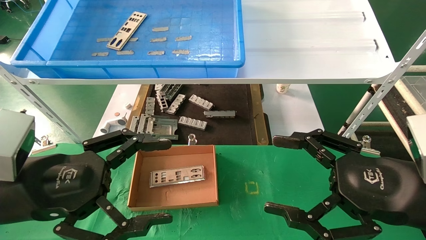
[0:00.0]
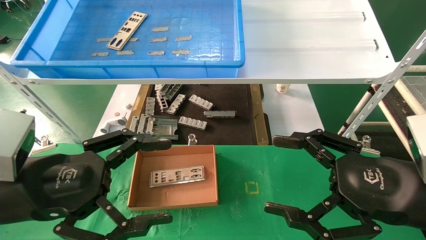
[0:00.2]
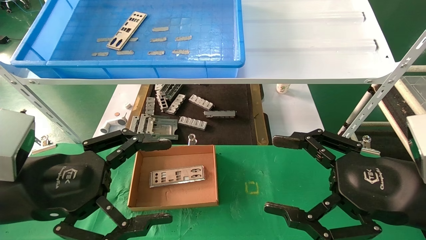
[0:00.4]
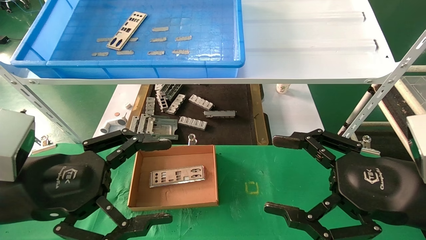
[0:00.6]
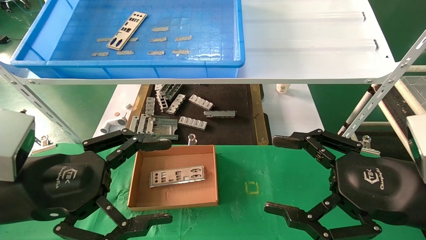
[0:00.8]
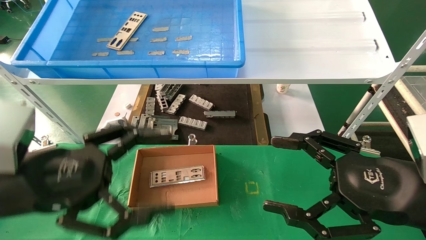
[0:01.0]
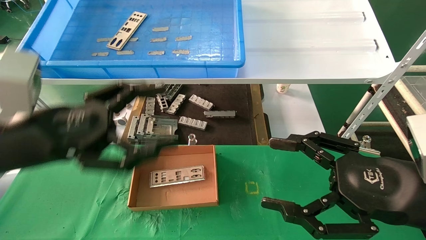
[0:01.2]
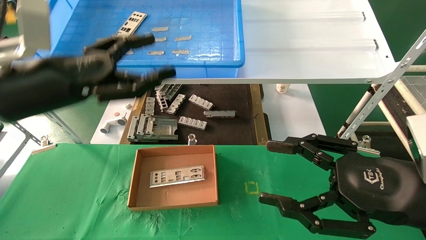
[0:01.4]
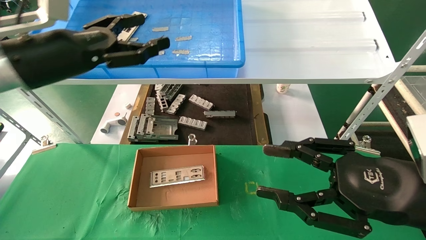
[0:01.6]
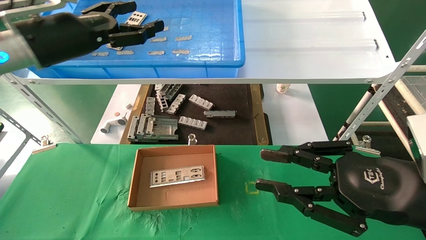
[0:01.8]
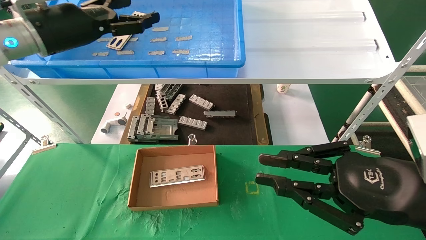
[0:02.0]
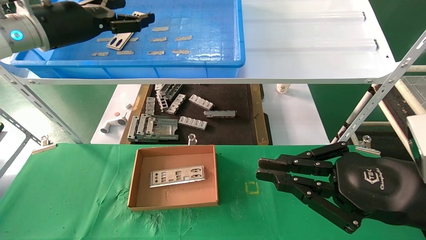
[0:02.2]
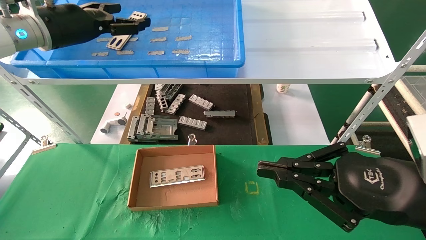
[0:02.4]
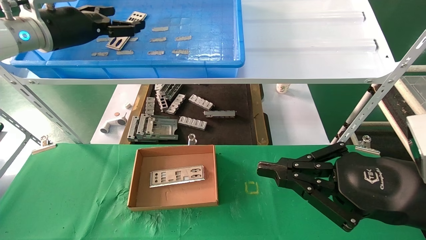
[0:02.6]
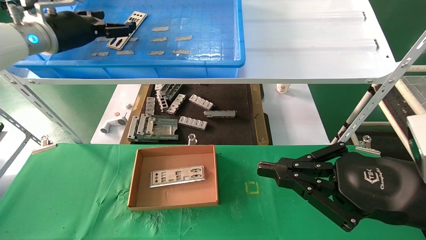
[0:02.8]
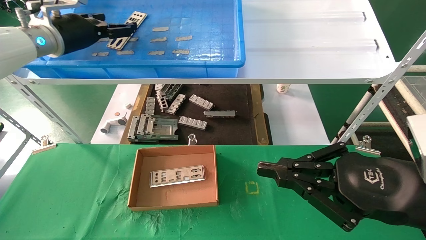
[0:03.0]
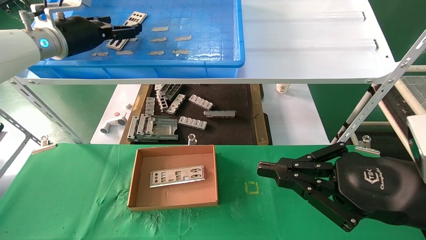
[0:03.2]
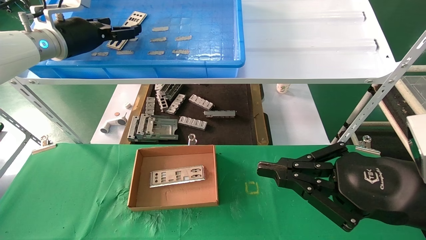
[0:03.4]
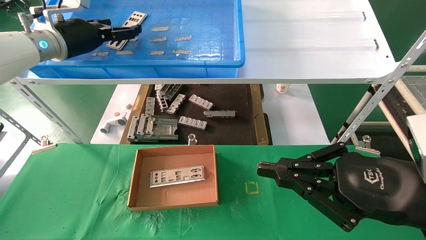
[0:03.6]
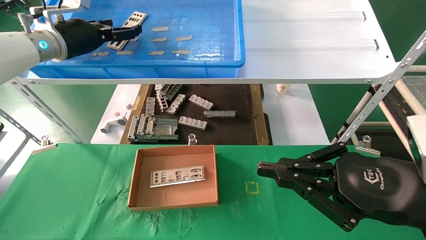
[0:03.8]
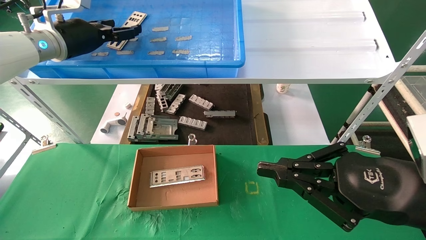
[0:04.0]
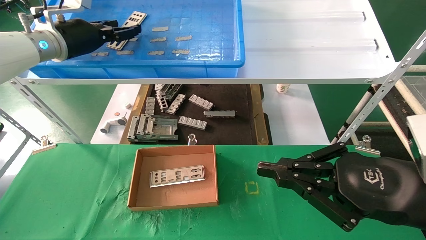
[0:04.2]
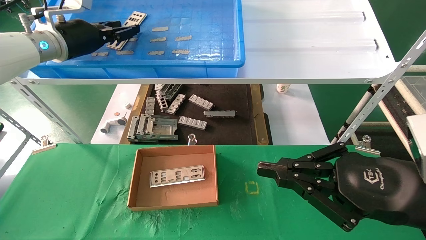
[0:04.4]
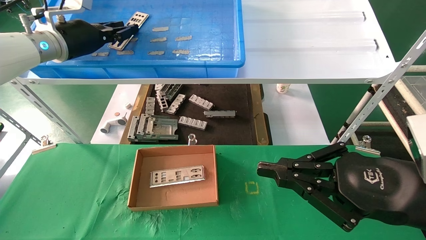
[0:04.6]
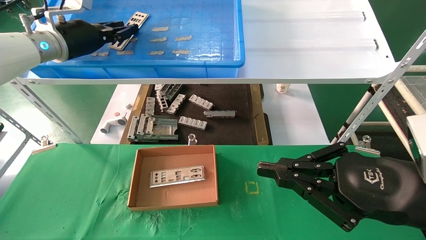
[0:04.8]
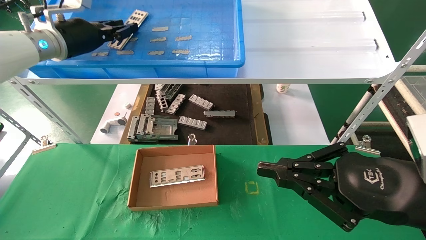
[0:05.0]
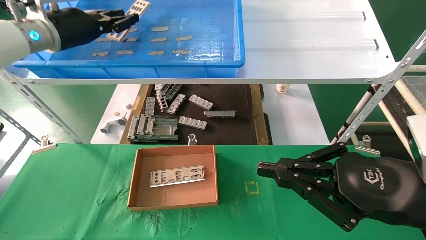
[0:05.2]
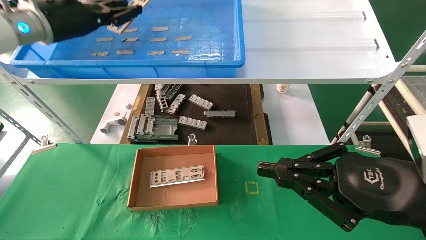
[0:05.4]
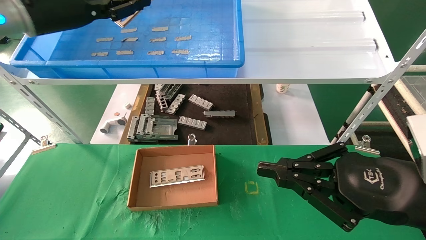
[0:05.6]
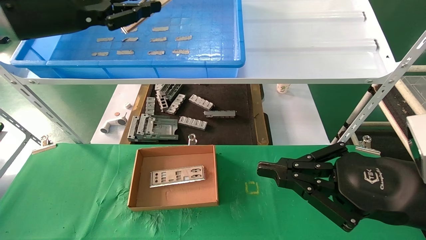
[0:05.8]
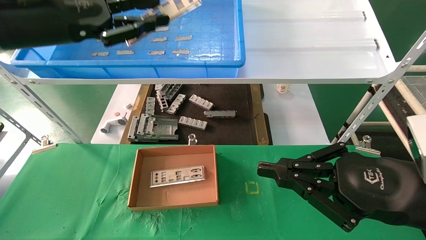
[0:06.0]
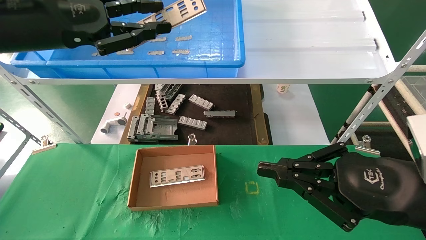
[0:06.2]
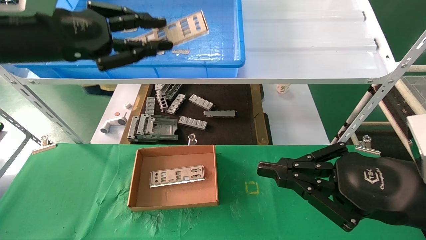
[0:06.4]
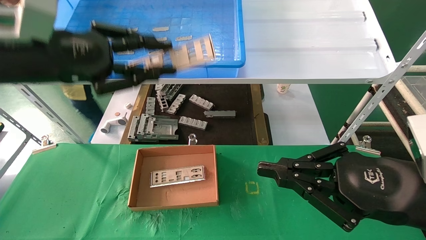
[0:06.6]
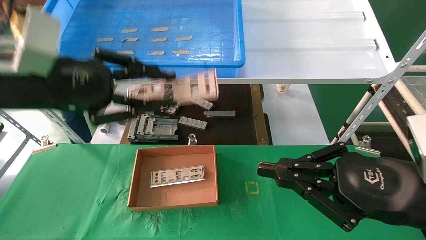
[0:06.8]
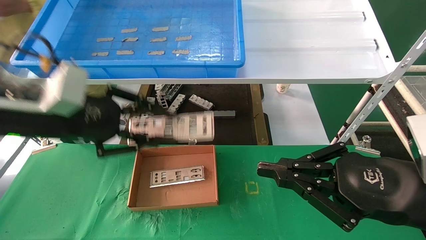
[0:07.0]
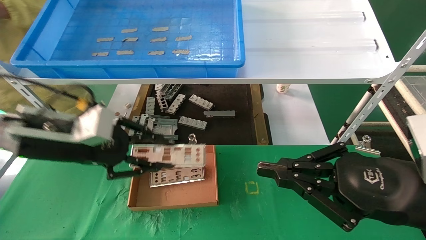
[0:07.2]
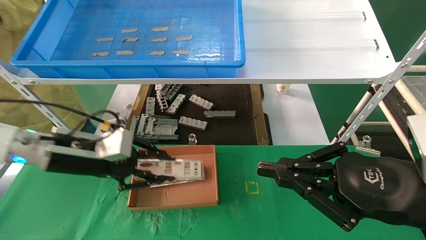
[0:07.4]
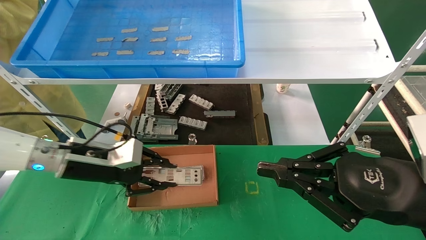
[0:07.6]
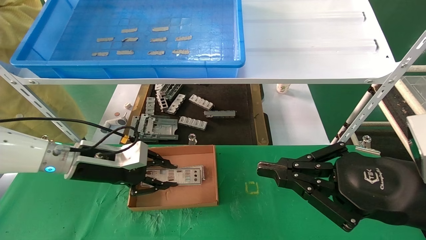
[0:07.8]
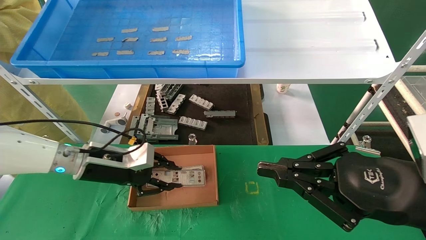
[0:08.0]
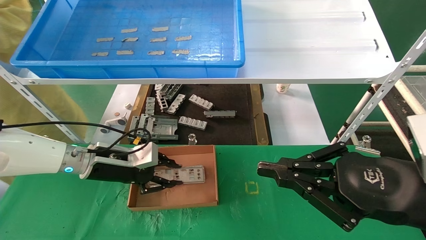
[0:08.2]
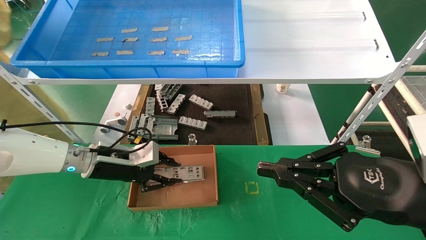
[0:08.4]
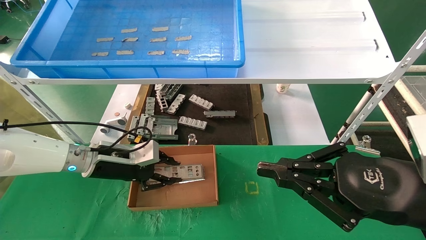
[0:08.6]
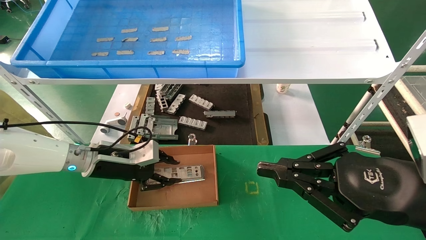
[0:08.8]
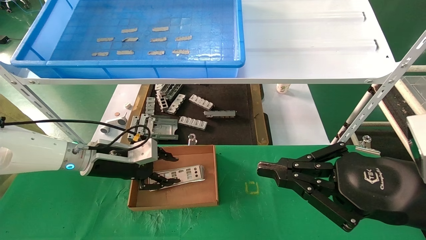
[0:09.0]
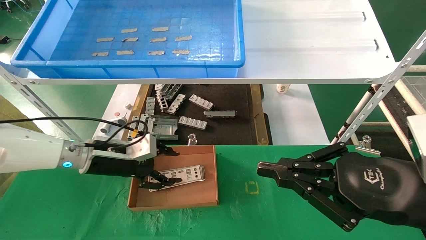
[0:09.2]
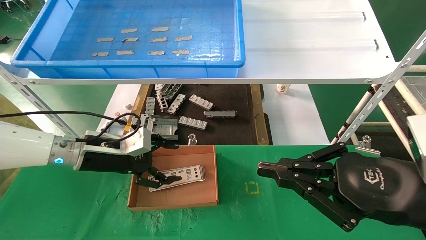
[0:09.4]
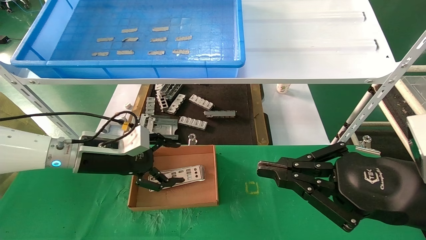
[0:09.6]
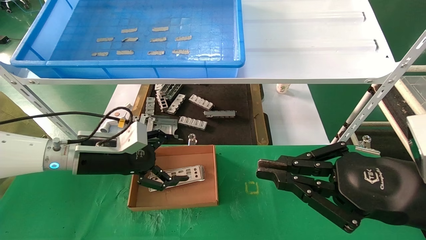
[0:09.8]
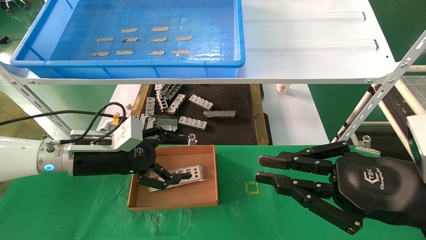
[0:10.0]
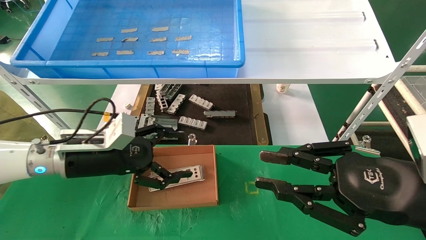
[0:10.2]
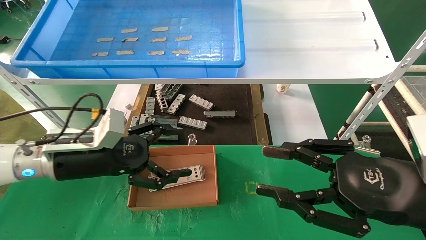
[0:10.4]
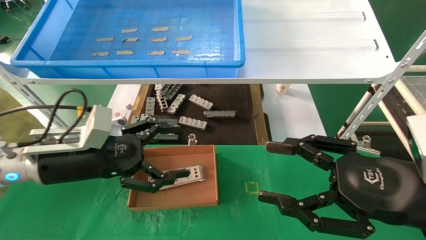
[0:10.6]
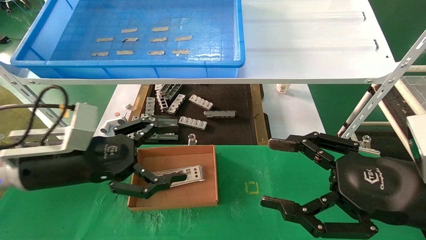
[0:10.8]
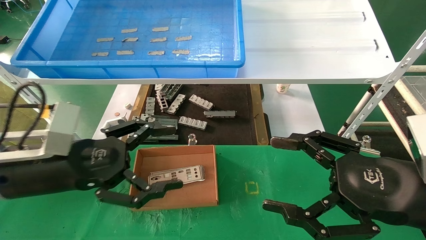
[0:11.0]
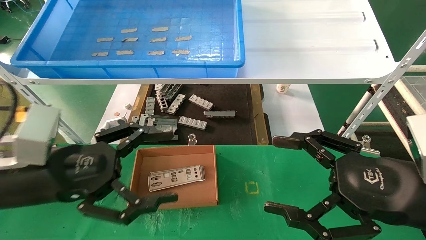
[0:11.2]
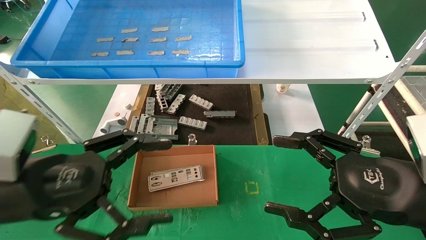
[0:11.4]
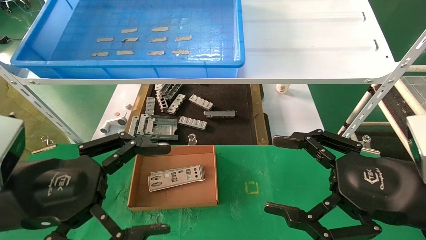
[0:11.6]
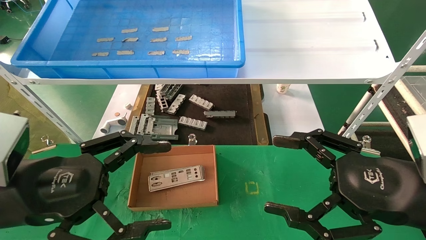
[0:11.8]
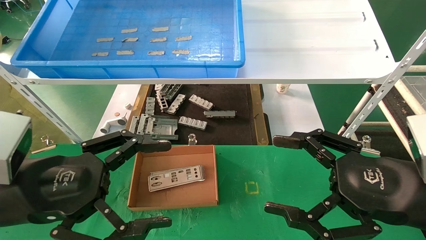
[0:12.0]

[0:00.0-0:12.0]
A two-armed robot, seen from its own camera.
Task of the whole recording: pick up the parts on the tray and put them in the cardboard box.
Step, 0:01.2 to 0:05.0: Pick up the IO bracket from the container box.
Step, 0:05.2 to 0:09.0: Place the IO bracket into the ingredient slot.
0:00.0 to 0:01.6: The left gripper is displaced forward and upward by some 20 cm.
0:01.6 to 0:03.0: The left gripper goes roughly 10 cm forward. The right gripper closes its fingers.
0:03.0 to 0:04.4: The left gripper closes up.
0:04.4 to 0:06.0: The left gripper shifts some 15 cm backward, and closes up.
0:06.0 to 0:07.6: The left gripper shifts roughly 25 cm downward.
0:07.6 to 0:09.0: The left gripper ends up some 5 cm from where it was.
0:09.0 to 0:10.4: The left gripper heads backward, covering about 10 cm, and opens. The right gripper opens up.
0:10.4 to 0:12.0: The right gripper opens up. The left gripper travels backward by some 15 cm.

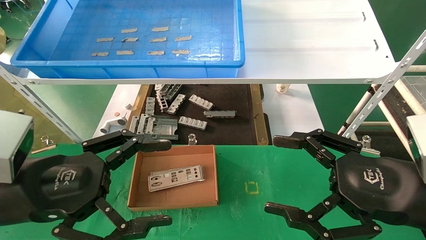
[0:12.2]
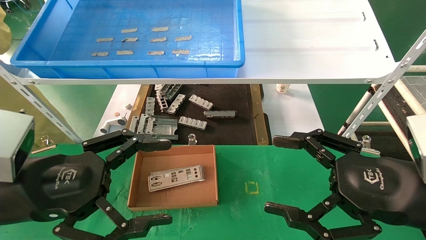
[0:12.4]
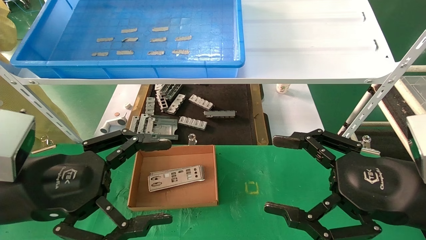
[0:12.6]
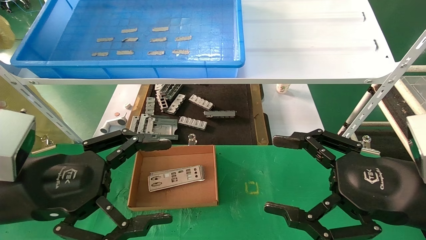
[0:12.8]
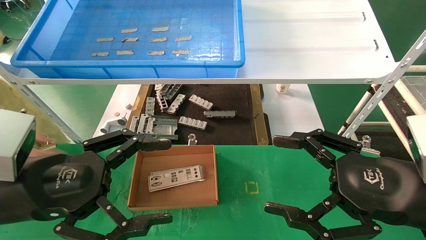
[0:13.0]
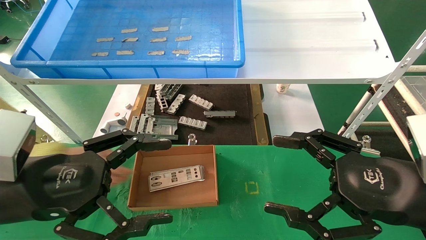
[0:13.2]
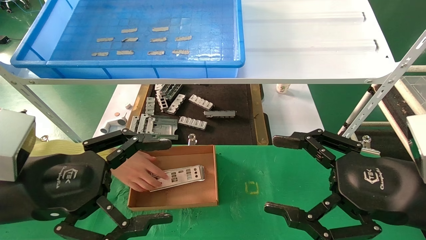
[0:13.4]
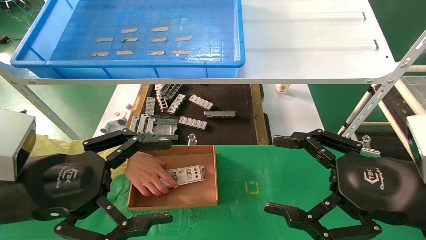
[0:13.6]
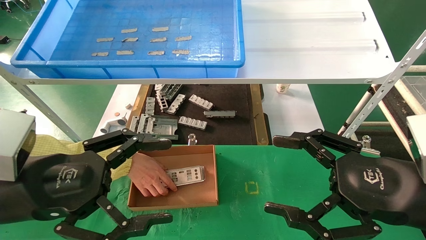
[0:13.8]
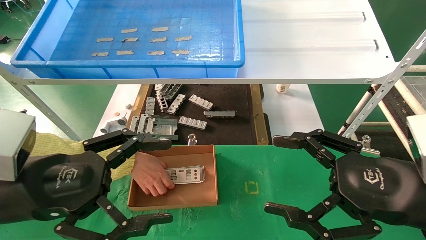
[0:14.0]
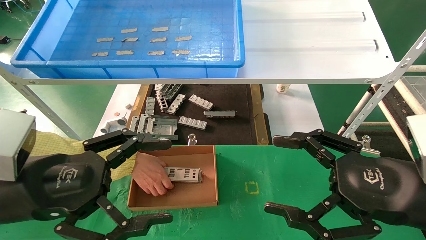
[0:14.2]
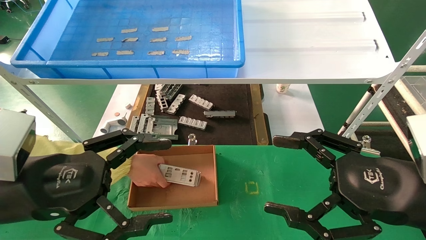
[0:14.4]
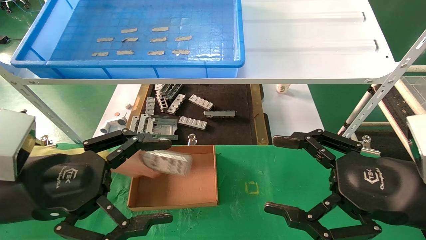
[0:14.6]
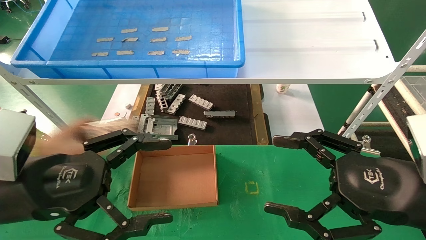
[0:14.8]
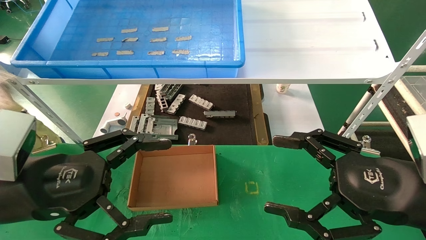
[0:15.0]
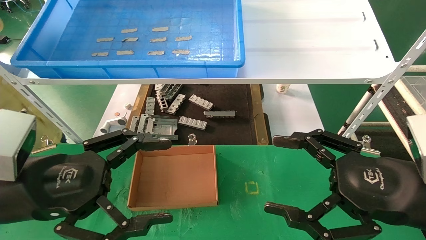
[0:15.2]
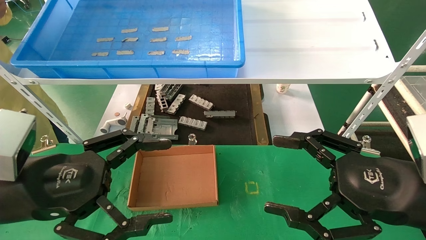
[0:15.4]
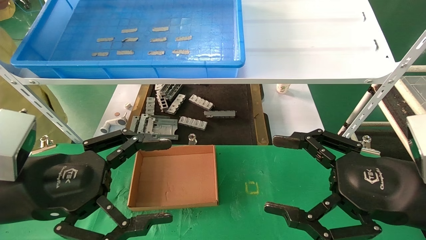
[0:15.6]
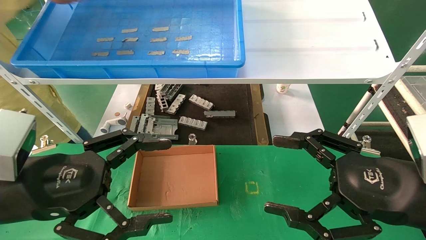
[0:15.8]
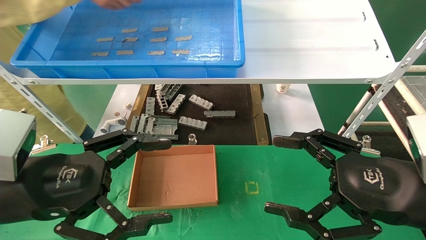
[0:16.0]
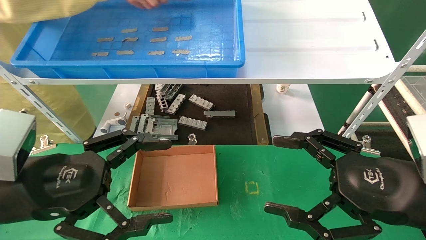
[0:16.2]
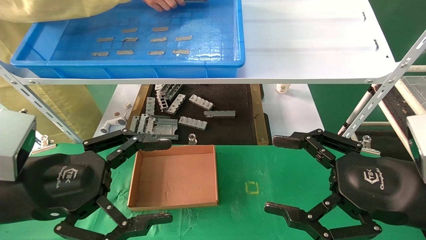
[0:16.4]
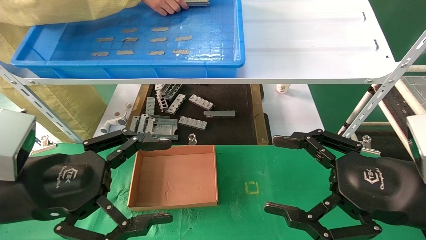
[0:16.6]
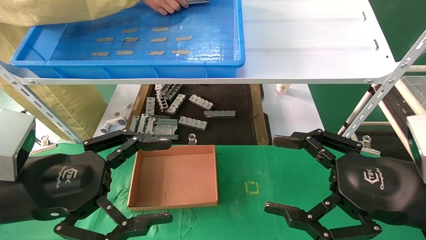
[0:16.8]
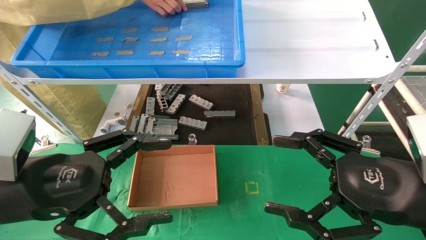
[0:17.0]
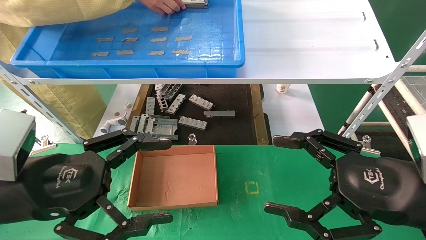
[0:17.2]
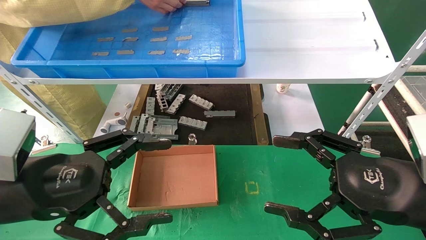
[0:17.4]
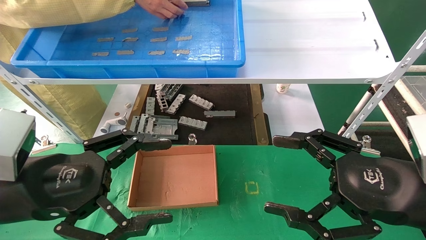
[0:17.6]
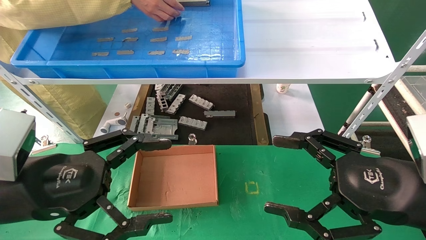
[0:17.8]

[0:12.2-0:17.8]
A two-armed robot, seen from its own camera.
Task of the whole recording: pick up the parts on the tray and put them in the cardboard box.
0:12.2 to 0:15.0: Neither gripper changes place.
0:16.4 to 0:17.8: The two grippers keep their place.
